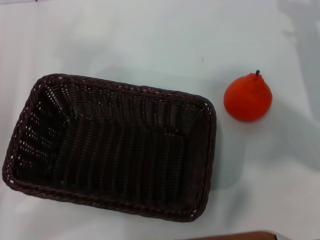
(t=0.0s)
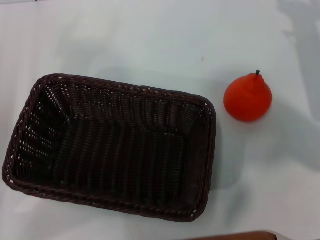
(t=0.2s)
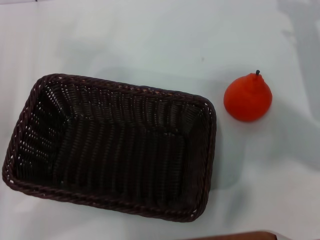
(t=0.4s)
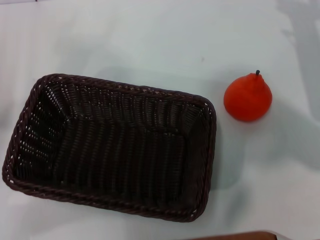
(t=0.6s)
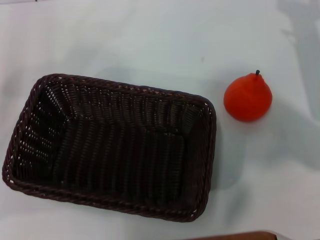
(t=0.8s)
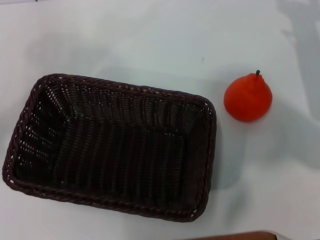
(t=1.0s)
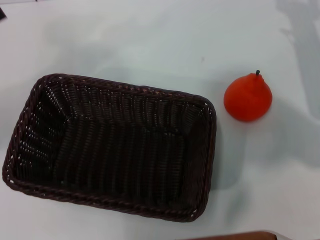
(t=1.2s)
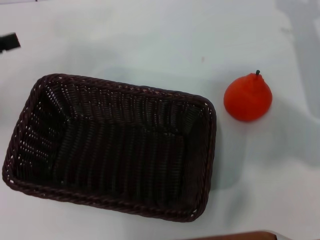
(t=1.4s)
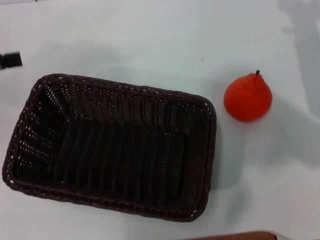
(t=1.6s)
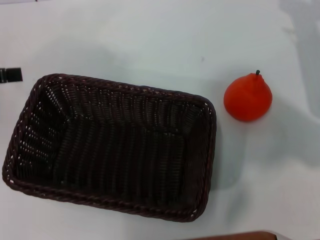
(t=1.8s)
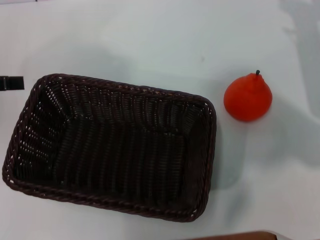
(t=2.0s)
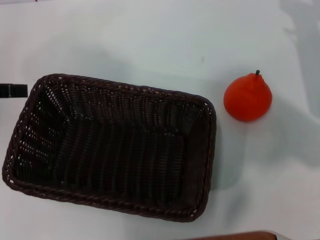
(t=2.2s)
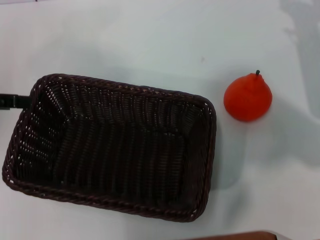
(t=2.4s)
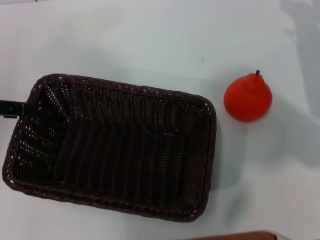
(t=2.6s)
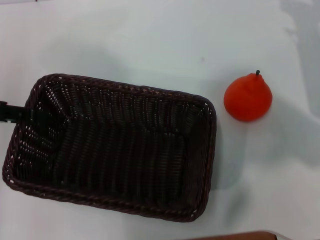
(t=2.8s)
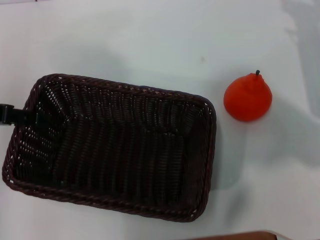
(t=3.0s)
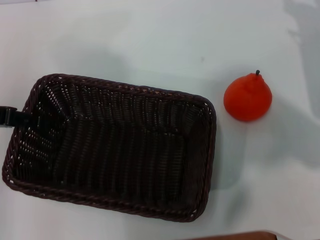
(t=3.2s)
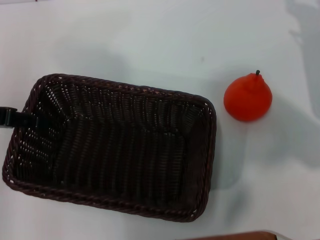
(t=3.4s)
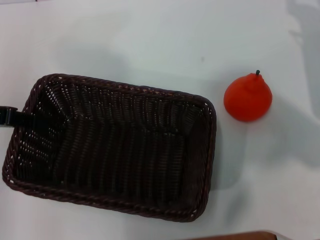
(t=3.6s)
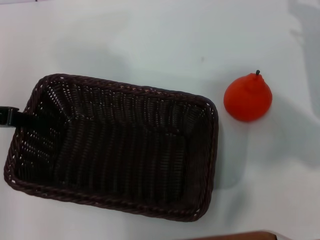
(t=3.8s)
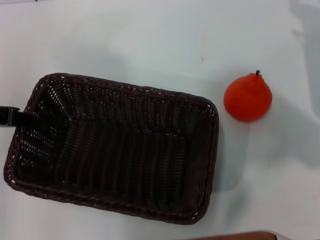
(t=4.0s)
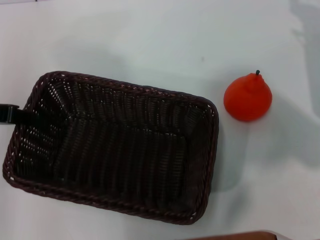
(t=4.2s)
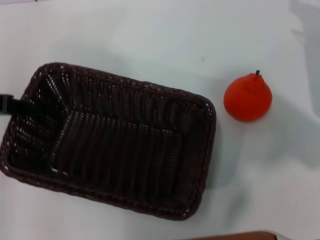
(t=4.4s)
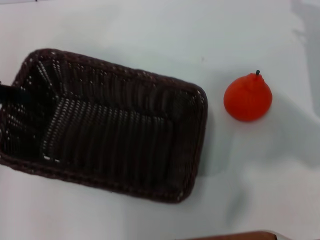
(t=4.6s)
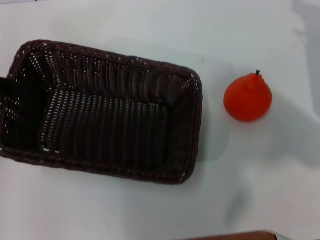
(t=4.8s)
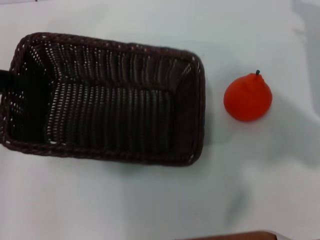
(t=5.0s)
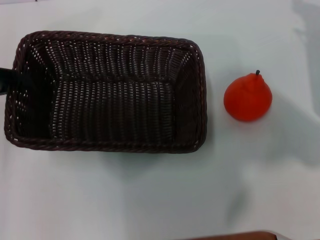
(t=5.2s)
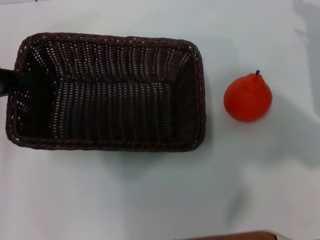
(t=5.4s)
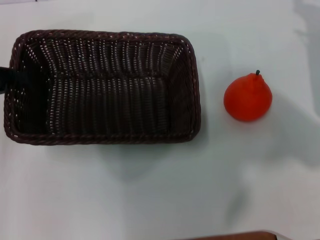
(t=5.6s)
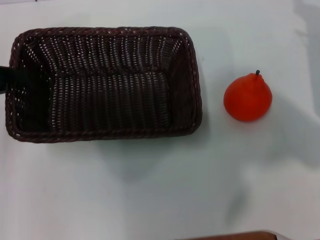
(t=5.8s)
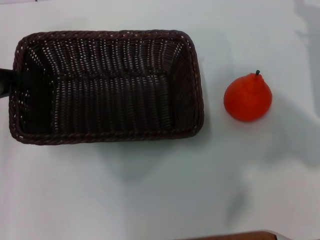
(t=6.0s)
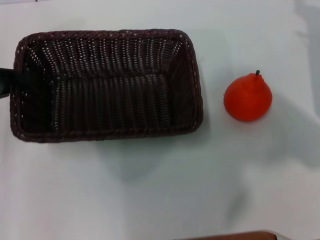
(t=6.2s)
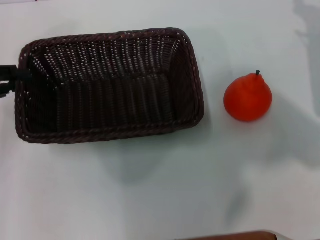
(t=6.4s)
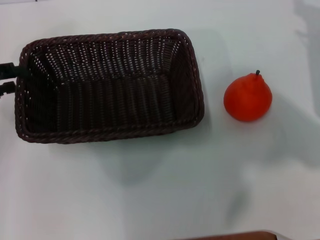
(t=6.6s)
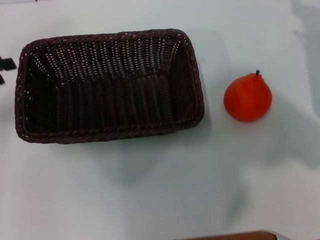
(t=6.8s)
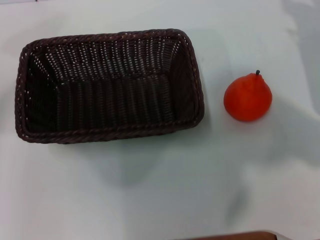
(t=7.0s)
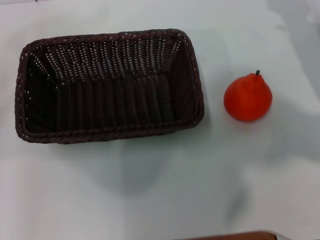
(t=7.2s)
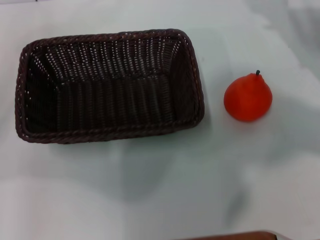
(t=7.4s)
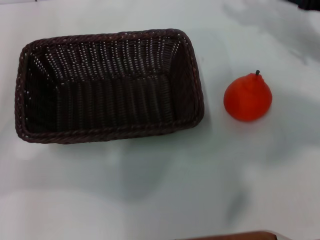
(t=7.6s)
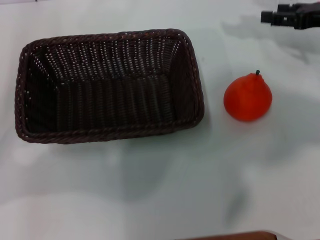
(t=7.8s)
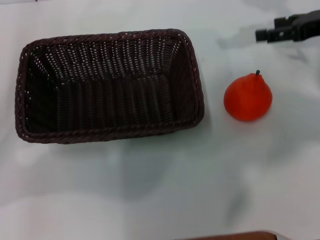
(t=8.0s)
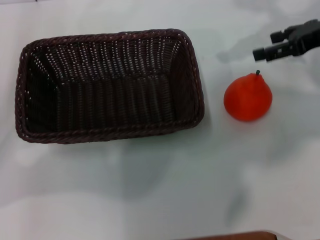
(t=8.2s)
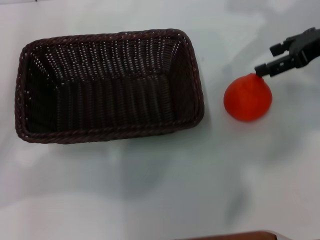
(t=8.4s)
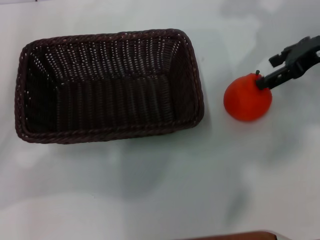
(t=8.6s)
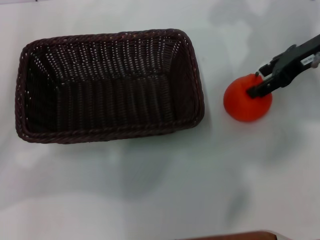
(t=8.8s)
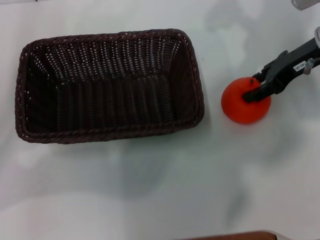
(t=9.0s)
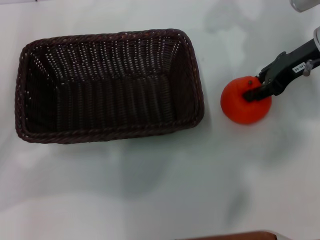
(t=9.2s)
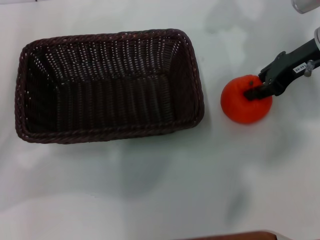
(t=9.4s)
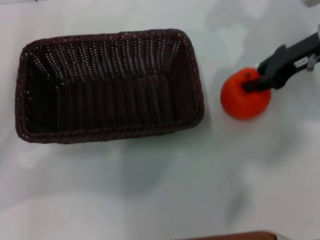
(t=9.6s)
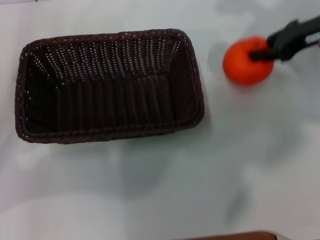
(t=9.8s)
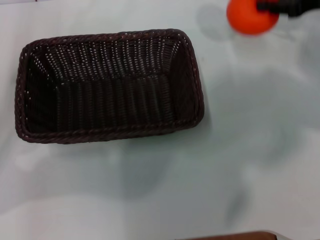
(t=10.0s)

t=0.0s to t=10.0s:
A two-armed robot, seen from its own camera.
Task of the whole recording: the left gripper pick up the black basket and place it horizontally in the middle of the table, the right gripper pick up the orange and place it into the black basket.
Step, t=0.0s to t=4.6s: Pick up the light basket with the left gripper.
Step, t=4.8s to t=6.8s: Place the light basket in the center of view with the left gripper.
Step, t=7.0s to t=9.6s: Pick up the orange with the right gripper.
t=0.0s to t=1.4s: The left gripper is displaced upward and forward by roughly 10 cm.
t=2.8s to t=4.2s: The left gripper closes up.
t=5.8s to t=7.2s: The left gripper opens up.
t=7.2s to t=8.6s: The right gripper moves upward, some 10 cm.
t=8.6s to t=10.0s: The right gripper closes.

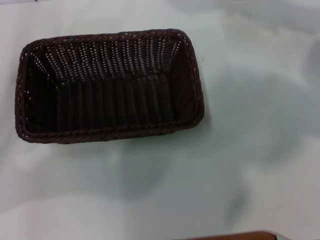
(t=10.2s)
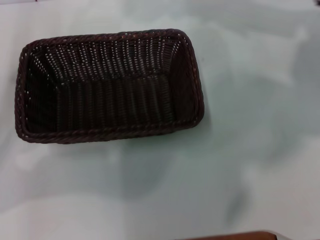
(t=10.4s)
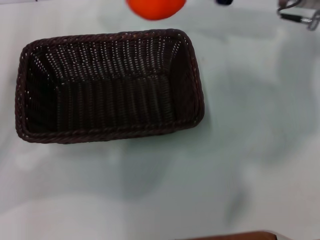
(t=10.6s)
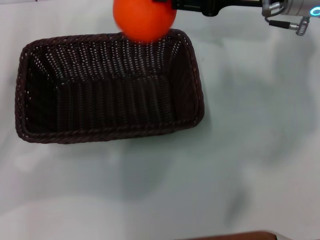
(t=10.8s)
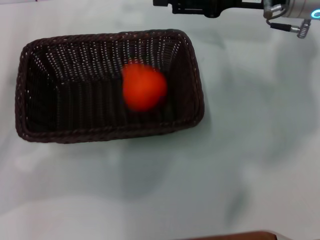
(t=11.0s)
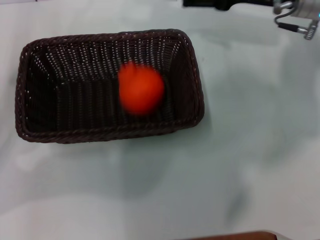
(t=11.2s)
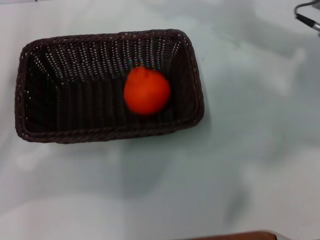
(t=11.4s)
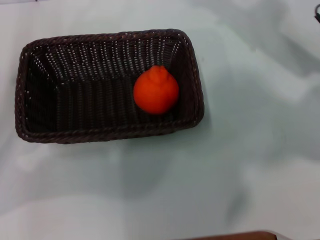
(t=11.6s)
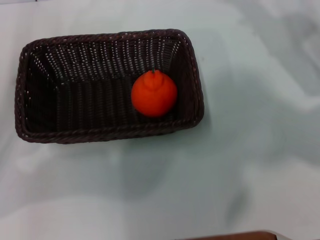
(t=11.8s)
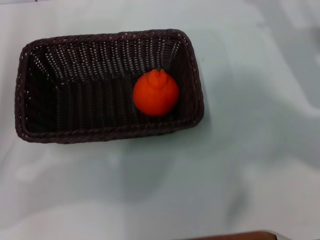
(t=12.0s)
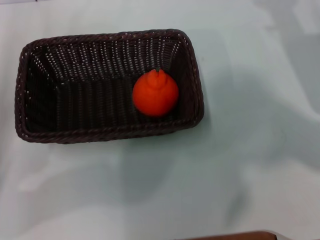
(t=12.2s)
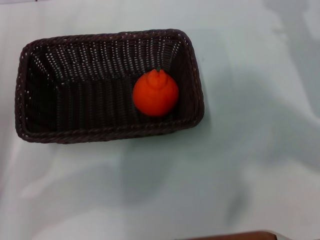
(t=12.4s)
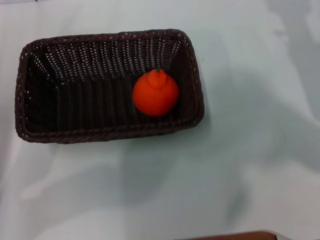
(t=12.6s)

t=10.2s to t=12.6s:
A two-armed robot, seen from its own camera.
Task of the whole recording: the left gripper pick up the black basket and place it horizontally in the middle of the table, the right gripper pick up the orange and place it into the black basket.
Step, t=10.2s to t=10.8s: Place the orange into the light basket with the right gripper.
t=10.2s to t=11.4s: The right gripper moves to the left, some 5 cm, and opens up.
t=11.4s to t=12.6s: The right gripper is displaced downward, to the right and backward by some 15 cm.
